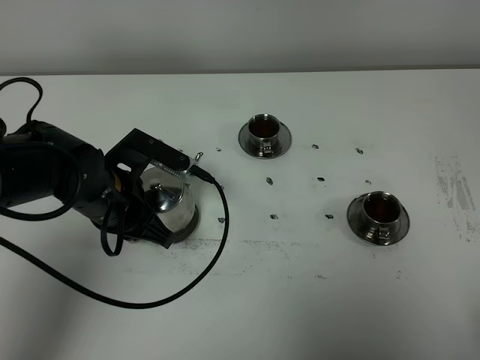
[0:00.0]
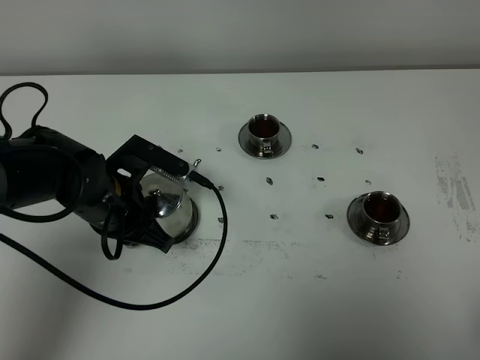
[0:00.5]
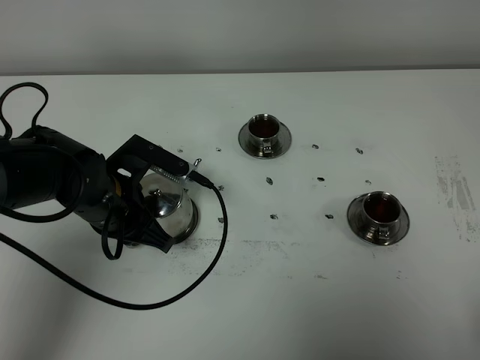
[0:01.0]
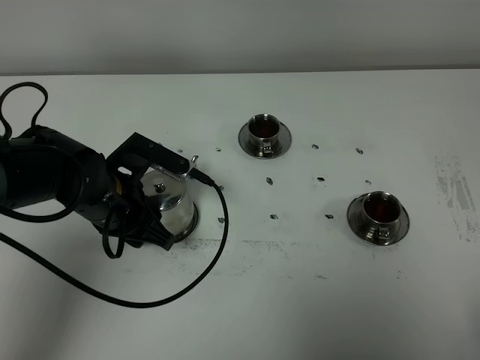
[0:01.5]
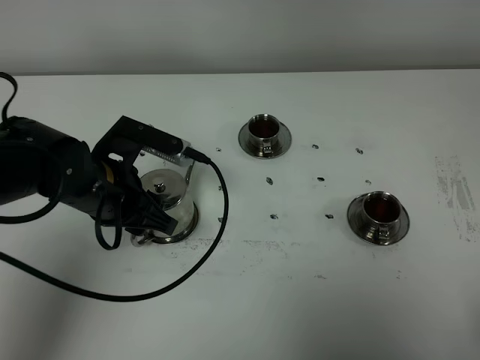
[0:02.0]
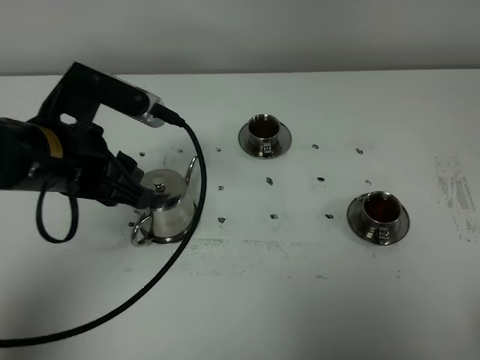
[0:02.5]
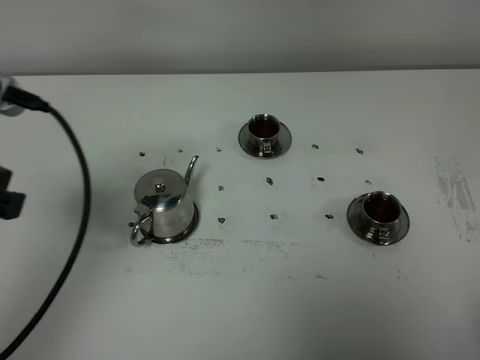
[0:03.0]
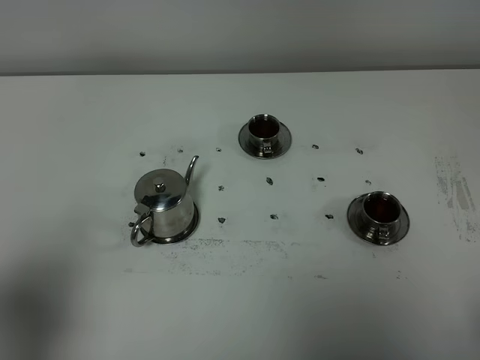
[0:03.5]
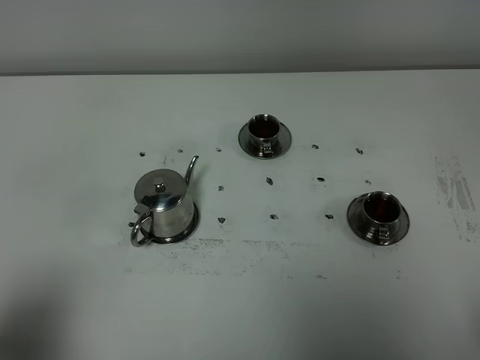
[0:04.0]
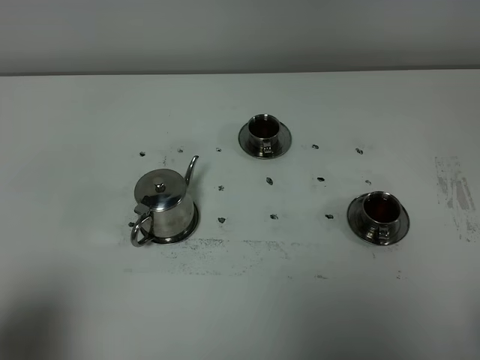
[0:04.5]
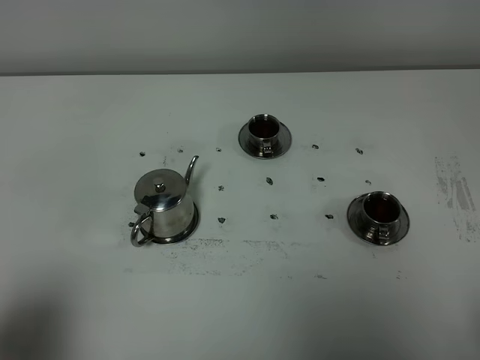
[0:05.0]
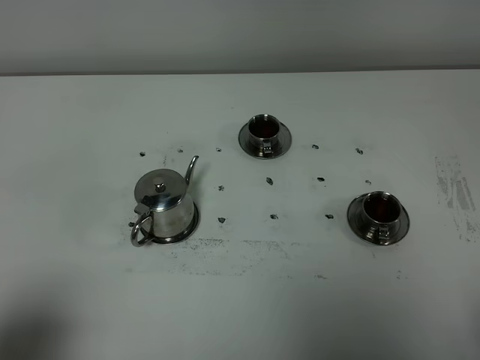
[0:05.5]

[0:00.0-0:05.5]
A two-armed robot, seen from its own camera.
Task of the whole recording: grasp the stainless steel teapot and pour the tea into the two stainless steel teacups one by one, put the stainless steel teapot back in its original place.
0:00.0 to 0:02.0: The left gripper opens up.
0:02.0 to 0:03.5: The left gripper heads backward, to the left and upward, covering some 30 cm.
0:03.5 to 0:05.5: The left gripper goes roughly 5 cm backward.
